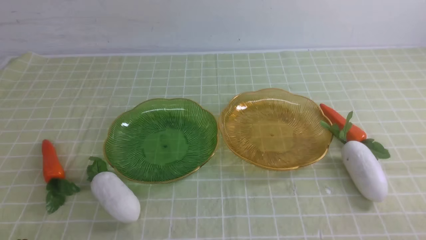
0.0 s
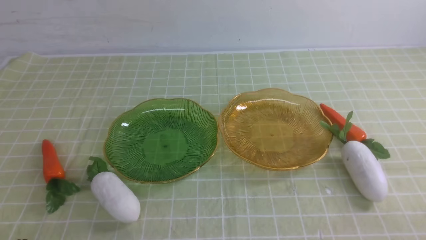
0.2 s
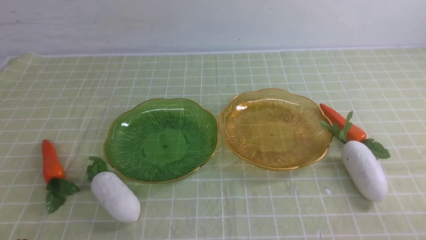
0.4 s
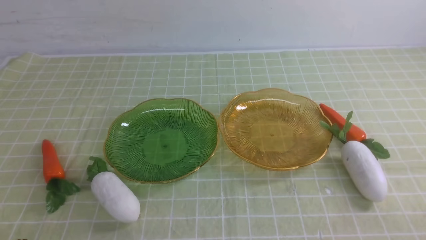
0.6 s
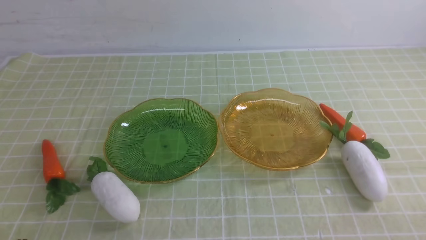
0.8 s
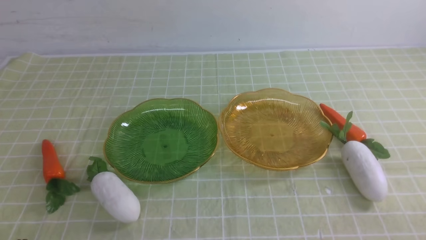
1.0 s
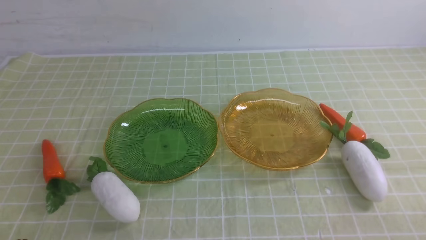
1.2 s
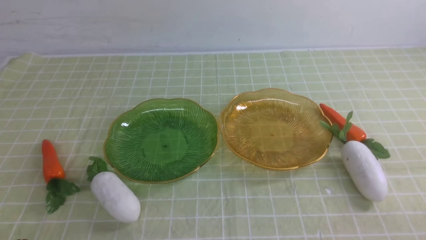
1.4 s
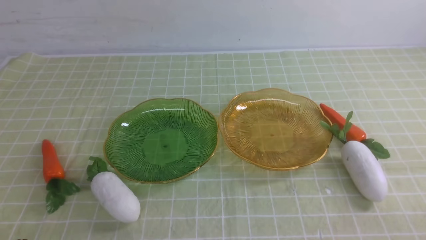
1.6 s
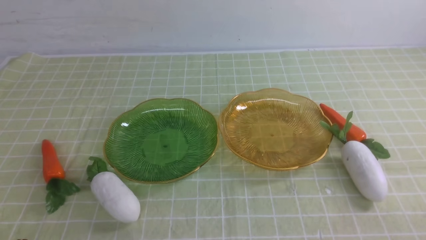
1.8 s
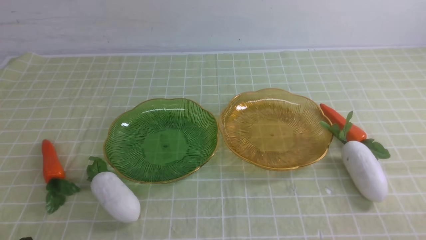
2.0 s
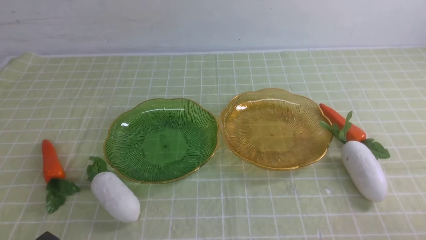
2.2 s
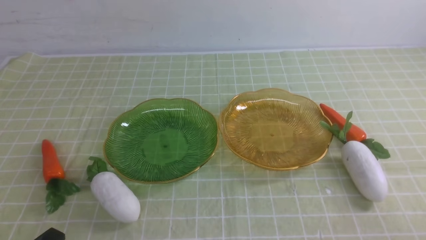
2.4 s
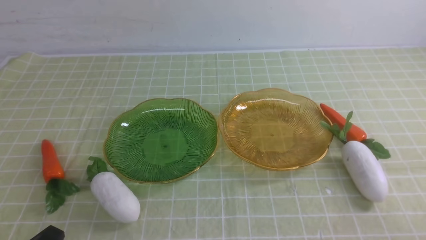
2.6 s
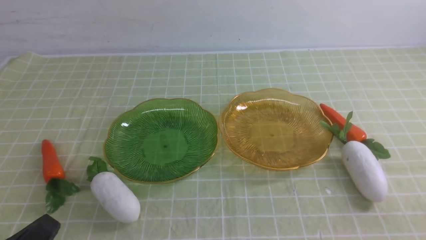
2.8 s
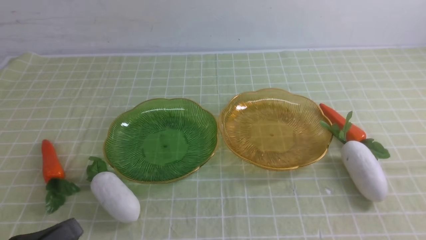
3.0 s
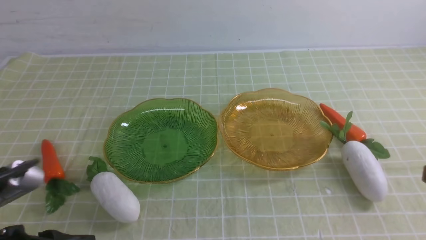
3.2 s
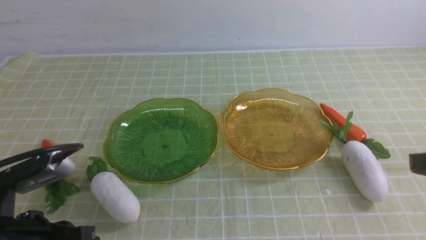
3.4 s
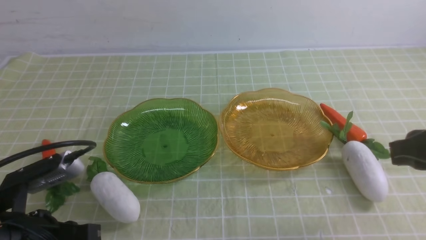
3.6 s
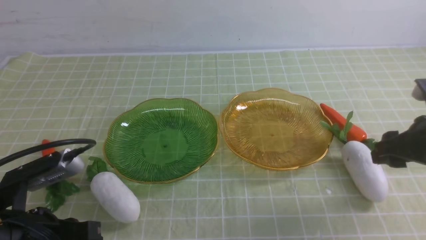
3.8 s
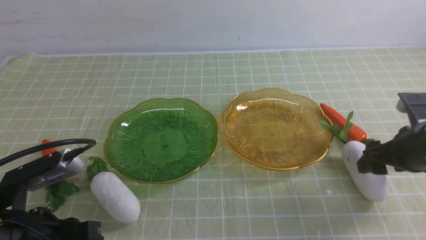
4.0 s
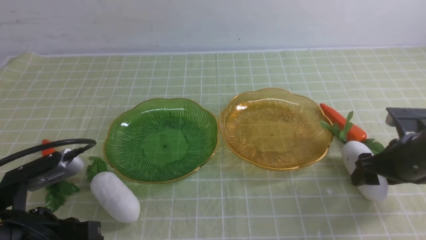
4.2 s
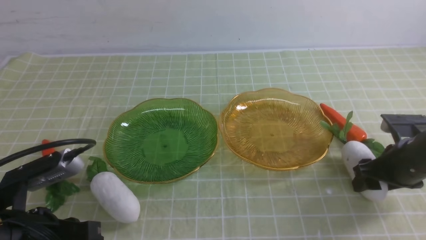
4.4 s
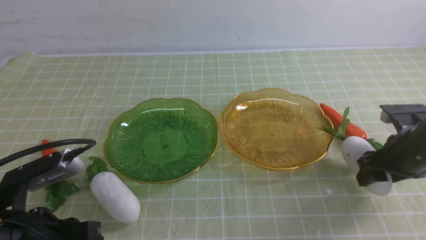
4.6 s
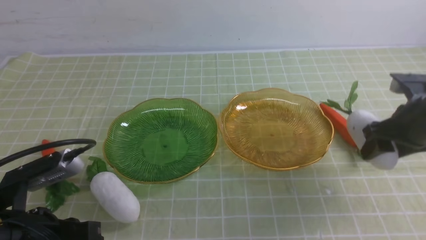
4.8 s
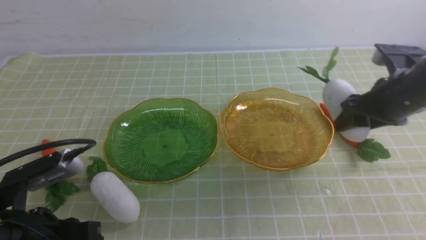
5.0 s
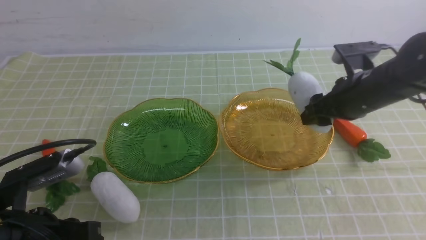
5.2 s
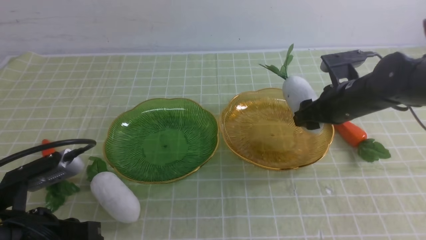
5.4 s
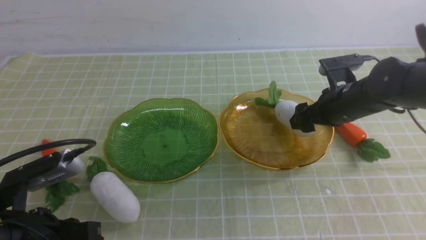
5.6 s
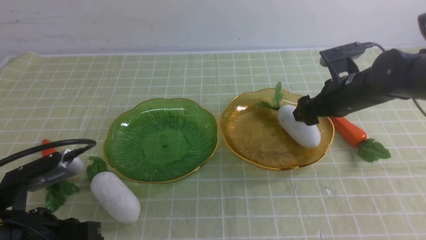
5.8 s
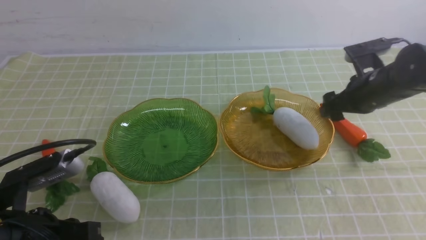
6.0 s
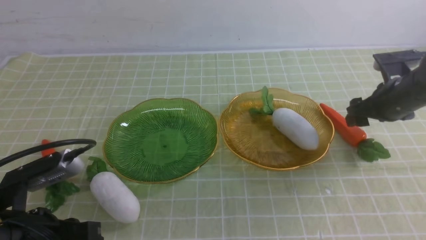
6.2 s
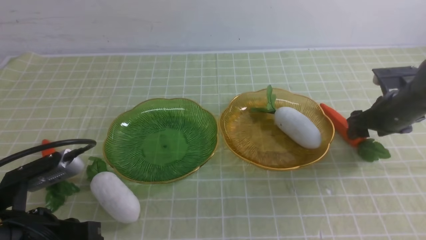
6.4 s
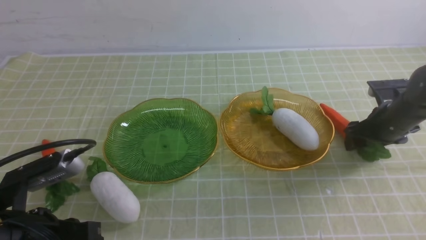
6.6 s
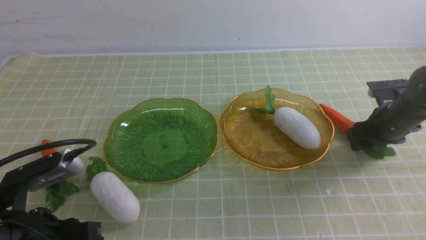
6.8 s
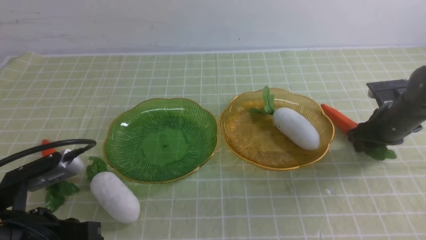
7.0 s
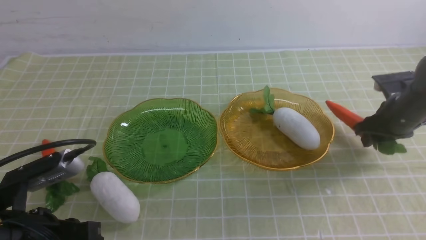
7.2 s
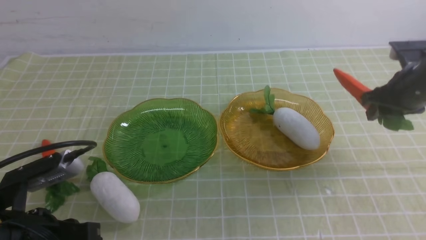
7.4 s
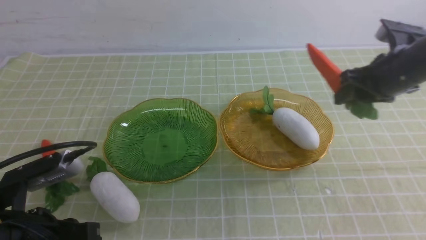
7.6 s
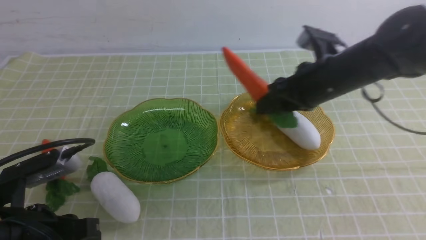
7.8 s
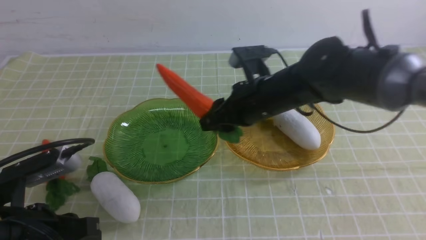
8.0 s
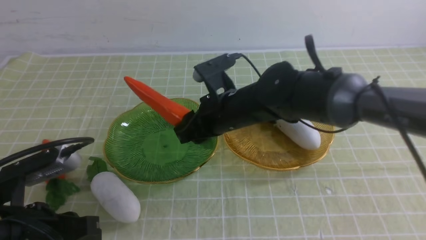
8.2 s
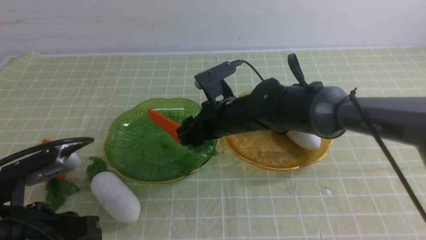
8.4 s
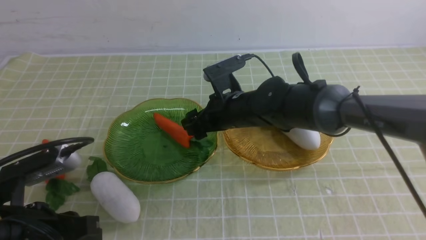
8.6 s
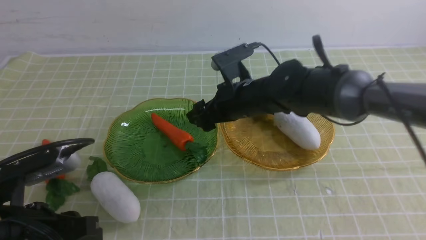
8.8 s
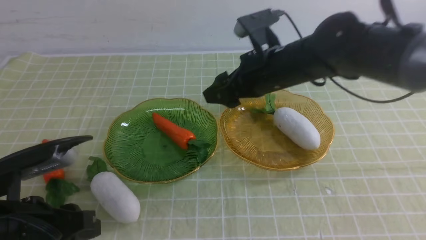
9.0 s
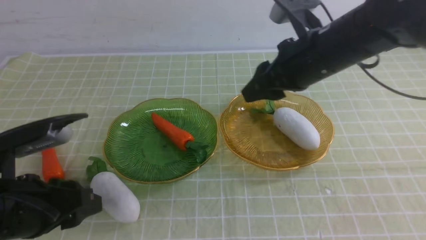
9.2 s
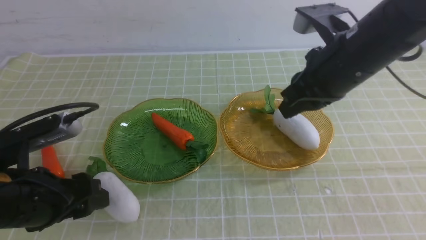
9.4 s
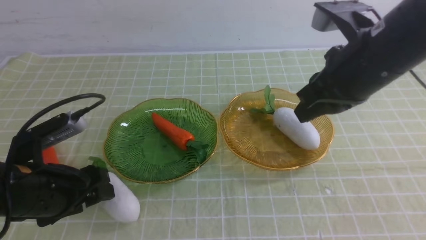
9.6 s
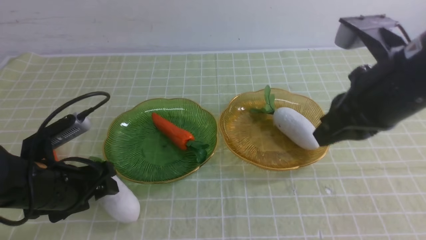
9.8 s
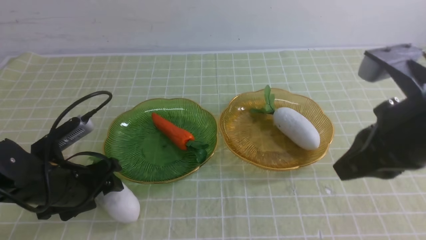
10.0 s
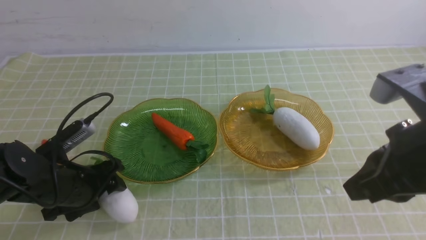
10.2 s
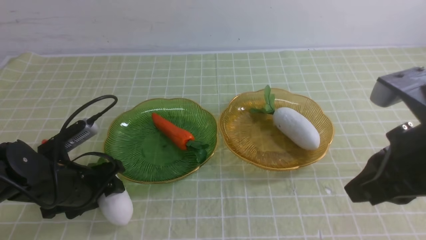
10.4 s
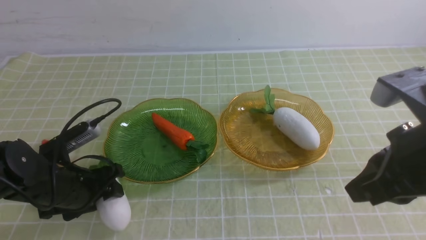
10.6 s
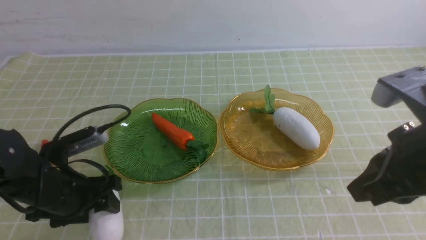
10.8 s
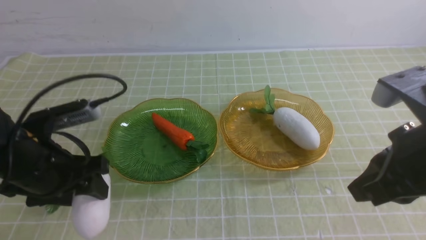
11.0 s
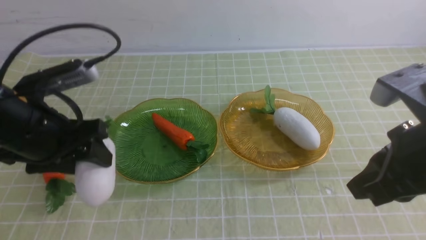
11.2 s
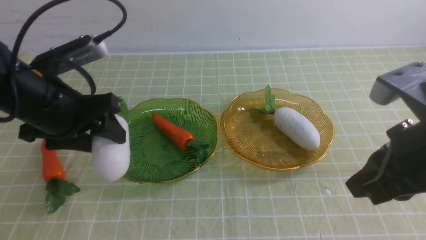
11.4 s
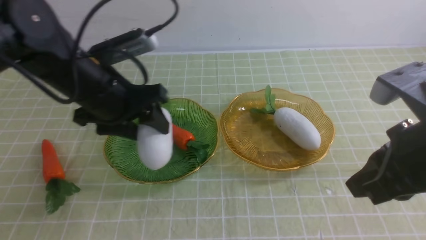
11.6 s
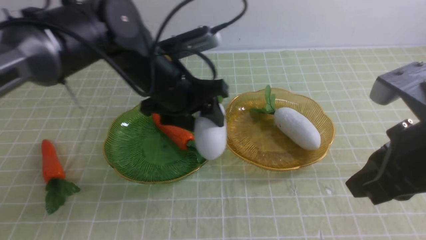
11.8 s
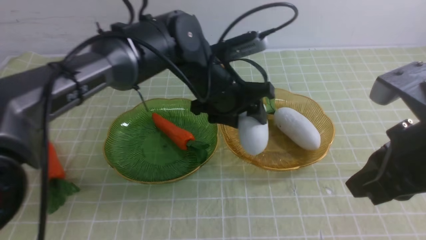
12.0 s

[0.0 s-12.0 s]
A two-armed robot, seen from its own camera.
Step, 0.0 to 6.0 s: use the right arm to grab a radish and put it into the right plate.
Step, 6.2 to 9.0 s: use the right arm to grab a carrot and put it into the left plate.
0.0 to 1.6 s: Neither gripper changes place.
1.6 to 3.0 s: The left gripper goes about 10 cm upward.
3.0 to 4.4 s: The left gripper is displaced forward by about 5 cm, while the right gripper travels forward and downward by some 25 cm, and opens.
4.4 to 6.0 s: The right gripper goes roughly 10 cm forward.
6.0 to 7.6 s: The right gripper travels upward by roughly 5 cm, and closes.
7.6 to 9.0 s: The right gripper is displaced to the left by approximately 15 cm, while the left gripper opens its fingers.
9.0 to 10.4 s: The left gripper goes roughly 15 cm forward and downward. Meanwhile the right gripper goes some 20 cm backward and to the right, and closes its fingers.
10.4 to 12.0 s: The left gripper heads to the right, forward and upward, covering approximately 25 cm.

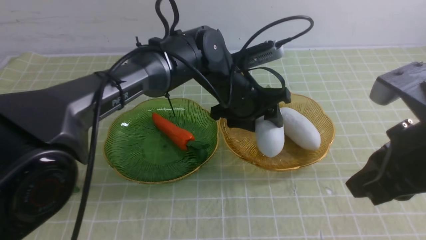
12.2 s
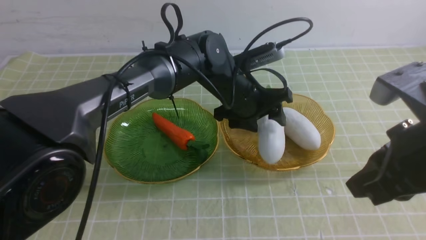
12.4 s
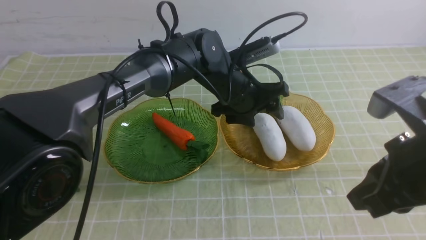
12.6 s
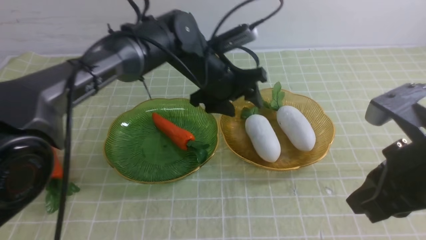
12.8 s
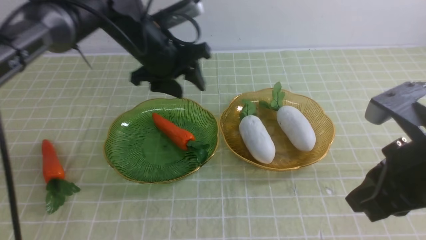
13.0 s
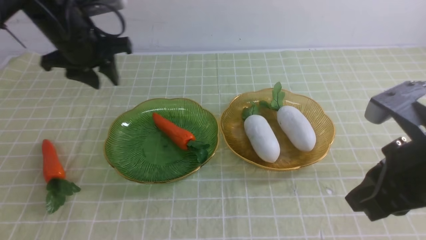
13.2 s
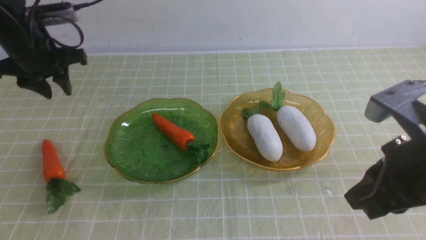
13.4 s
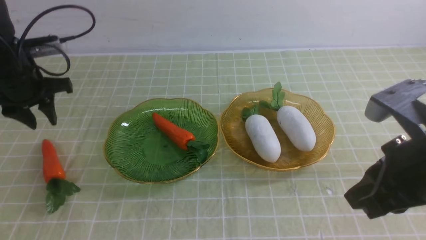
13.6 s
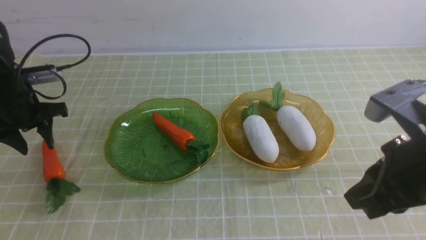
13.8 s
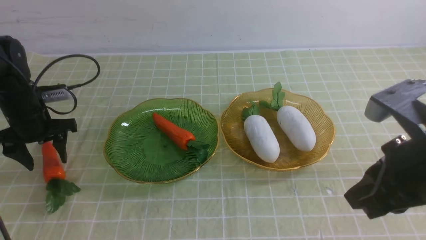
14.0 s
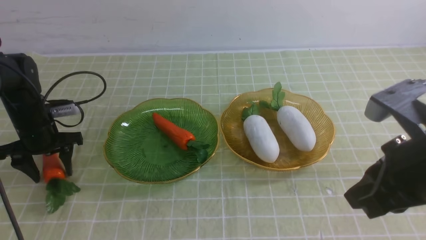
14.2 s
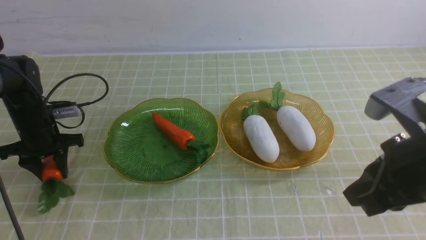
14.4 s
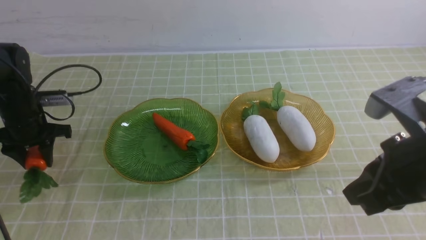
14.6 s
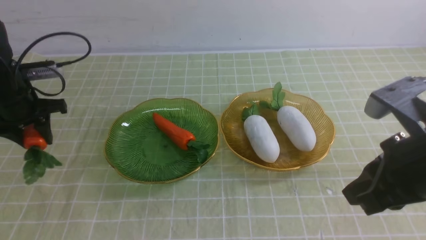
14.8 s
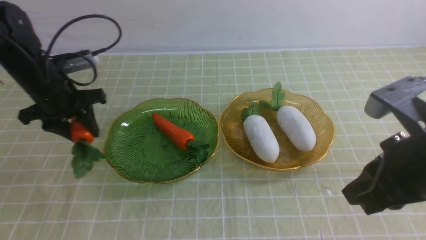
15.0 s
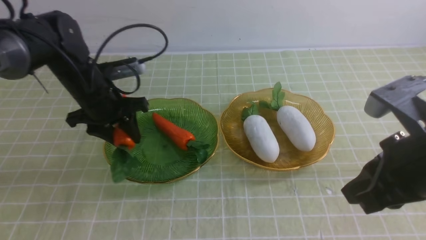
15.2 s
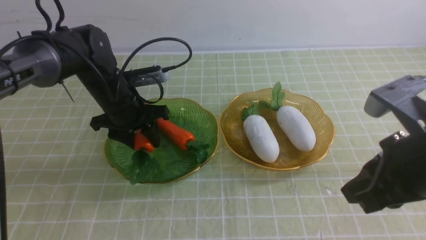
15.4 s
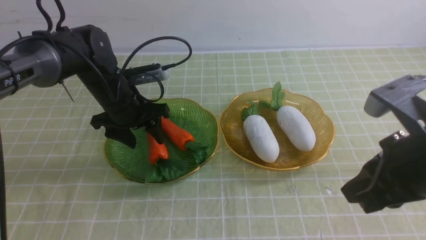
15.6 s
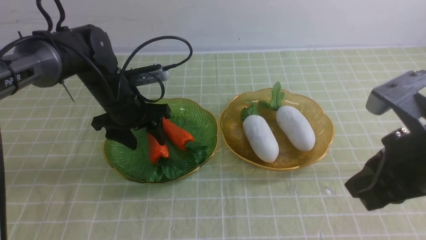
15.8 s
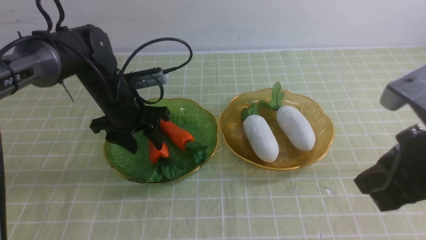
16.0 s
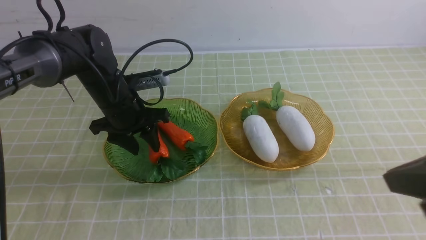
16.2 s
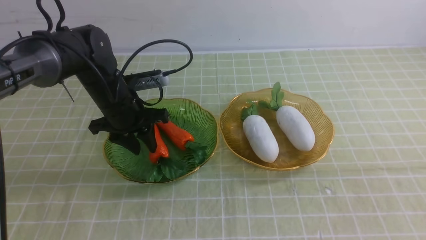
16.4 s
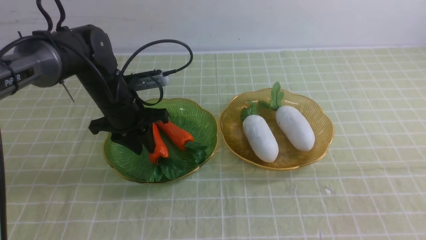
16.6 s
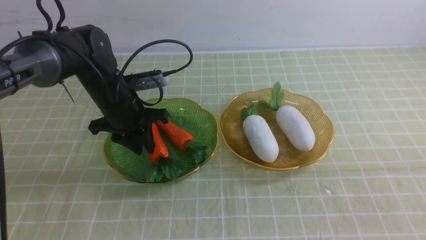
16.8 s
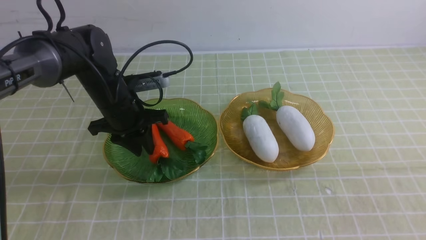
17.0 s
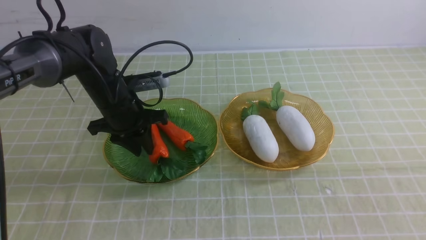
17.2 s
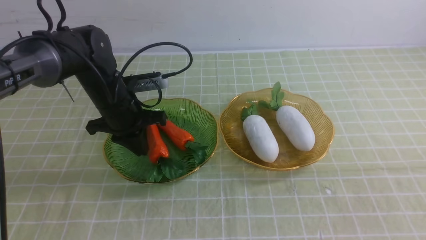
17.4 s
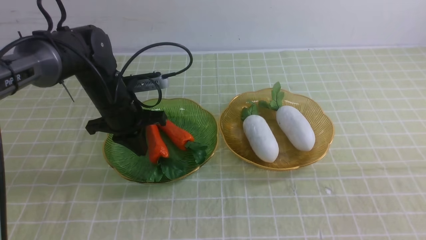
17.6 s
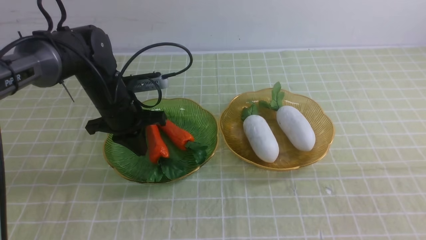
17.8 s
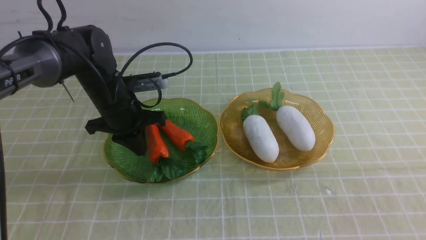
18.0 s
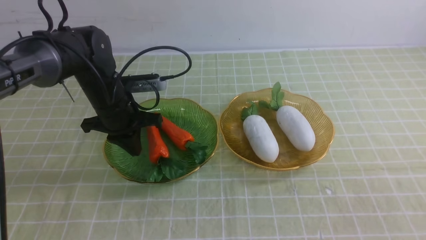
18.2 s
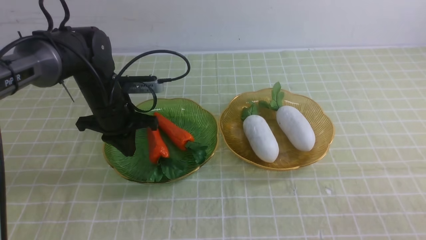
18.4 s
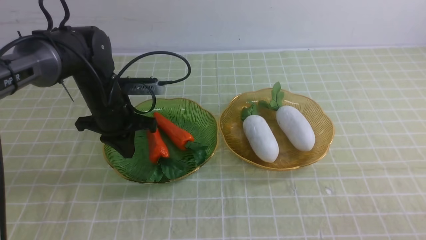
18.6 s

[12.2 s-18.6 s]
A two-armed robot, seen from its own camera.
Step, 13.4 to 15.6 s: use the left arm to grab a carrot and put it into the left plate.
12.2 to 13.8 s: The left gripper heads to the left, covering about 35 cm.
13.8 to 15.4 s: The left gripper travels to the right by about 15 cm.
15.4 to 17.0 s: The right gripper heads backward and to the right, covering roughly 15 cm, while the left gripper closes its fingers.
17.0 to 18.6 s: The right gripper goes some 15 cm downward, while the left gripper closes.
